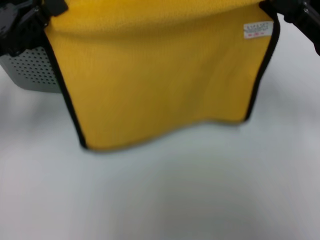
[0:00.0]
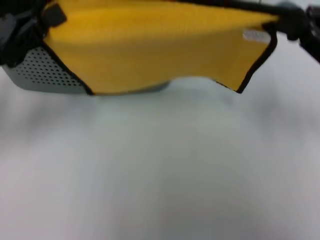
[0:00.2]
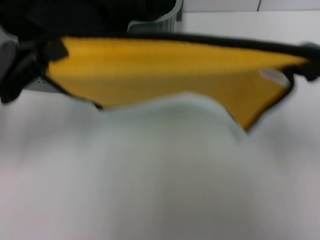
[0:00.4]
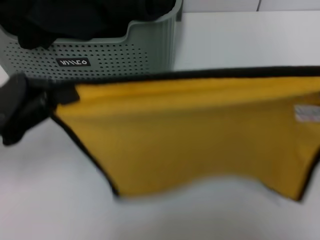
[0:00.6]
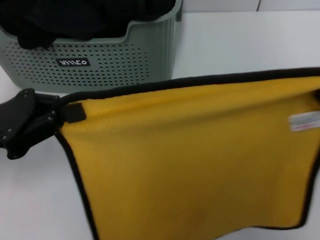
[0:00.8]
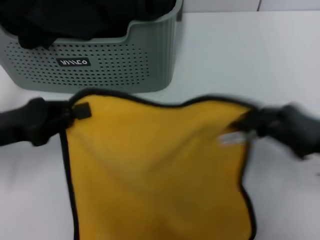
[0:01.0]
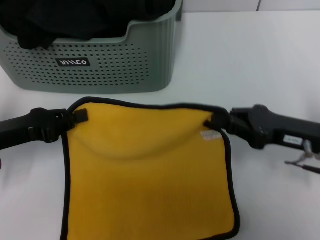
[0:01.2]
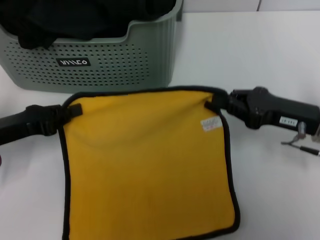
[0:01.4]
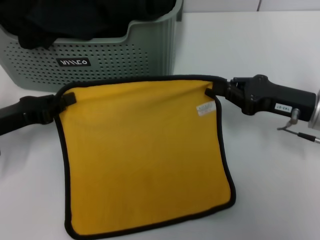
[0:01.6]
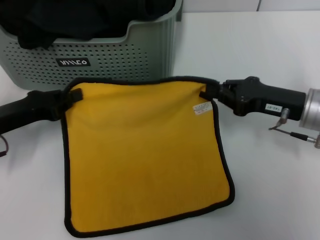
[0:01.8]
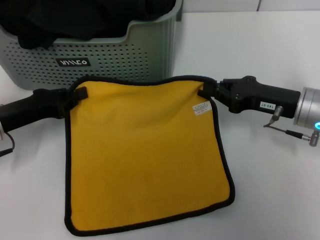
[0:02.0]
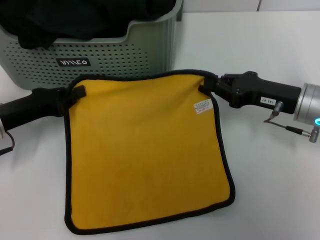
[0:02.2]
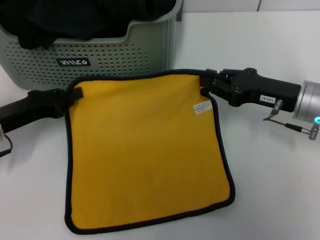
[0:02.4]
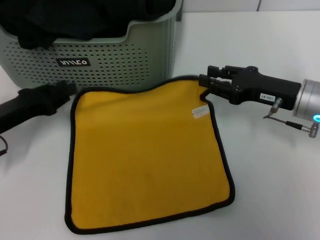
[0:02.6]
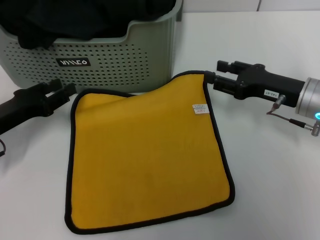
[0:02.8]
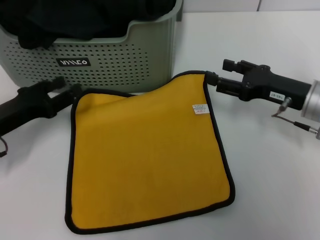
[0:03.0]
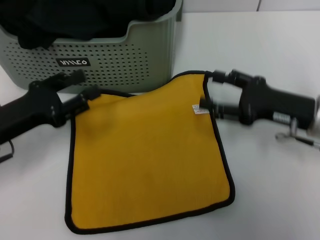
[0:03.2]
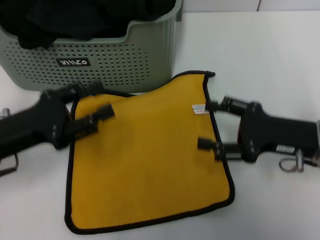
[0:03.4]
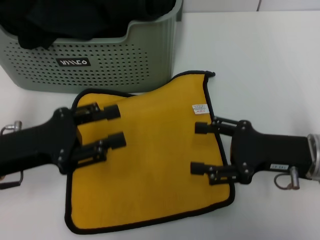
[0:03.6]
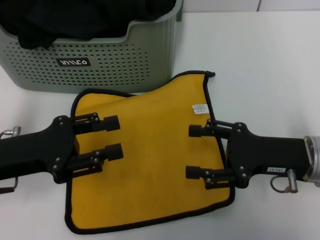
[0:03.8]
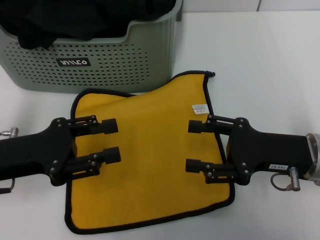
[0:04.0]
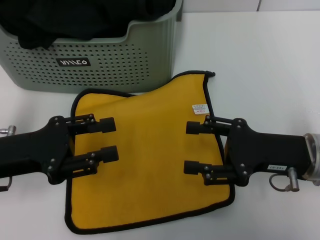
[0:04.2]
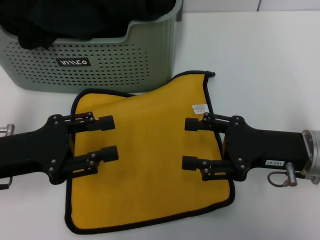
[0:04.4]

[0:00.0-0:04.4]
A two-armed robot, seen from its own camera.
Task of the whole recording: pick up the towel from the storage box and lay it flat on the table.
Step, 0:00.0 to 0:02.6: Spread the towel flat with the right gripper.
0:00.0 to 0:01.4: Both grippers travel together downward, about 10 cm.
0:01.4 to 0:03.0: The right gripper opens, while the left gripper opens its fingers.
0:03.0 to 0:04.4: The right gripper is displaced backward by about 5 cm; the left gripper moves approximately 5 cm.
